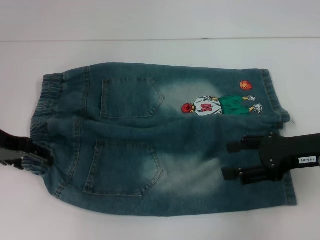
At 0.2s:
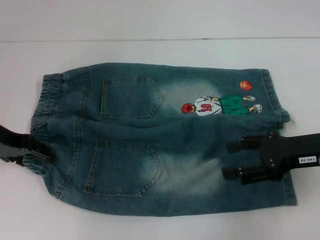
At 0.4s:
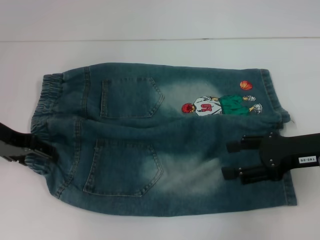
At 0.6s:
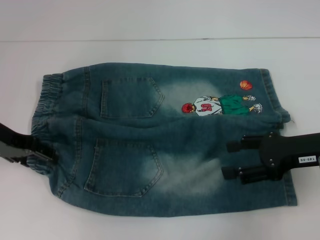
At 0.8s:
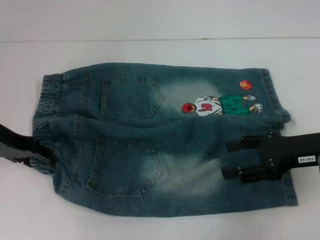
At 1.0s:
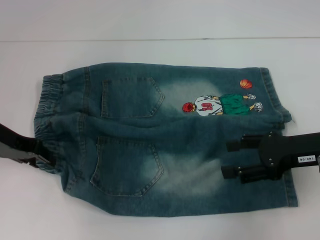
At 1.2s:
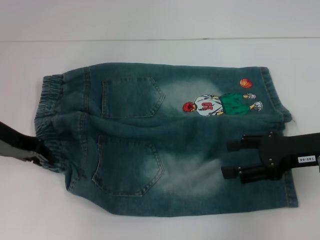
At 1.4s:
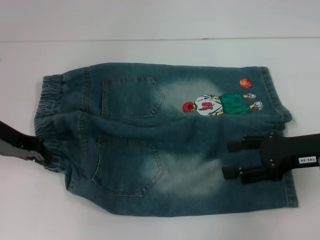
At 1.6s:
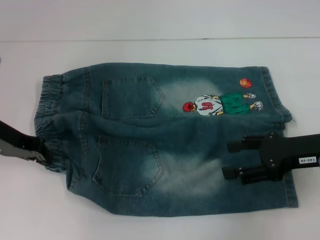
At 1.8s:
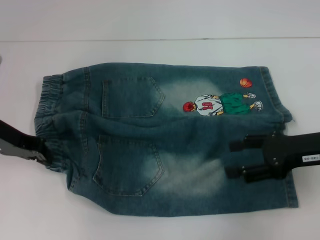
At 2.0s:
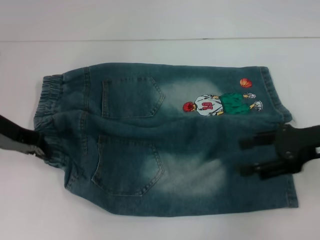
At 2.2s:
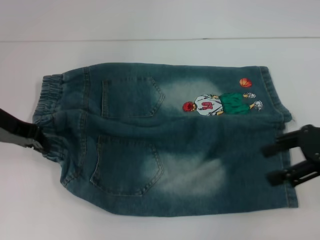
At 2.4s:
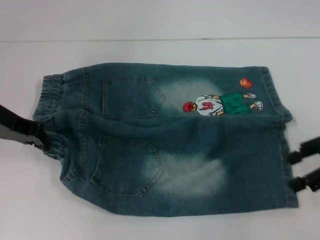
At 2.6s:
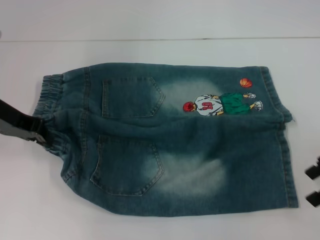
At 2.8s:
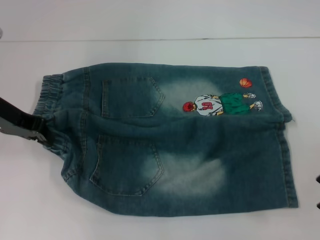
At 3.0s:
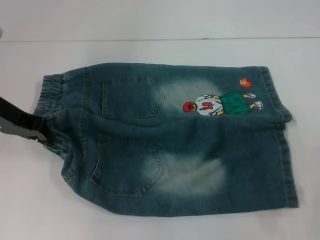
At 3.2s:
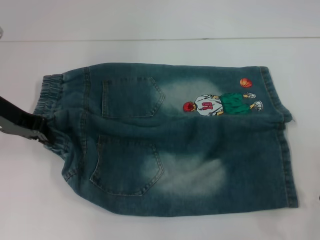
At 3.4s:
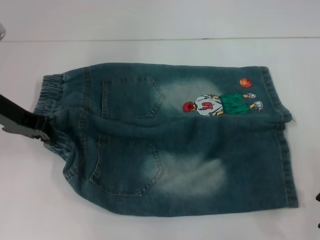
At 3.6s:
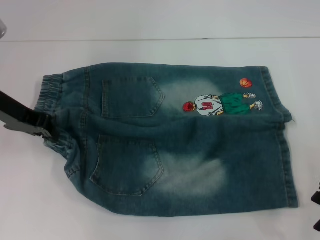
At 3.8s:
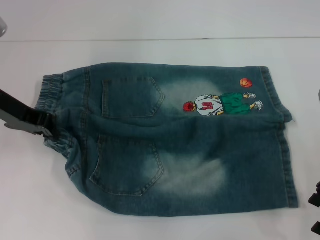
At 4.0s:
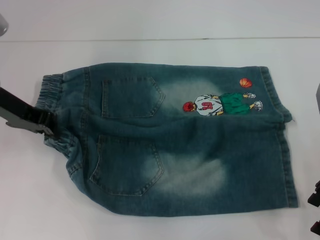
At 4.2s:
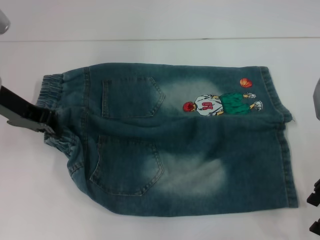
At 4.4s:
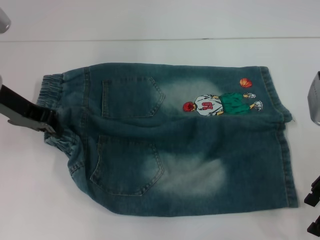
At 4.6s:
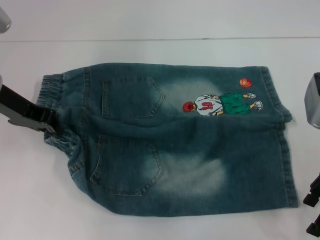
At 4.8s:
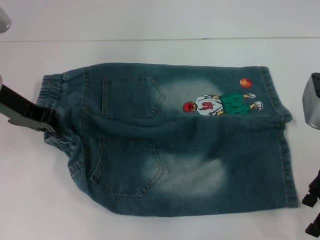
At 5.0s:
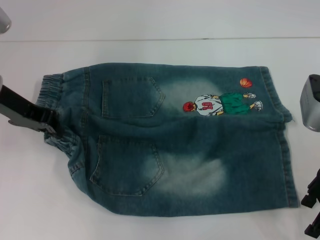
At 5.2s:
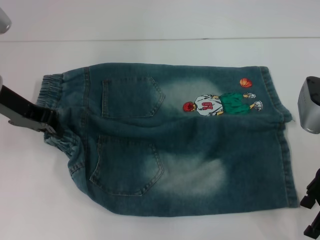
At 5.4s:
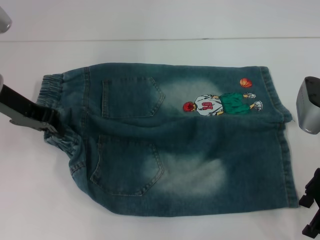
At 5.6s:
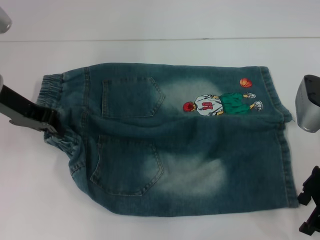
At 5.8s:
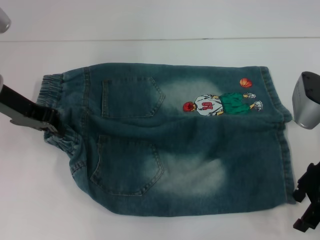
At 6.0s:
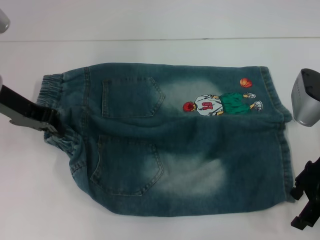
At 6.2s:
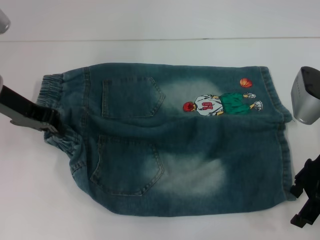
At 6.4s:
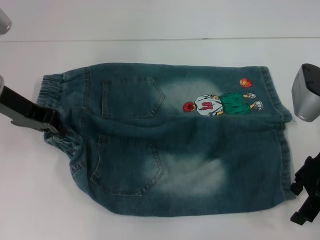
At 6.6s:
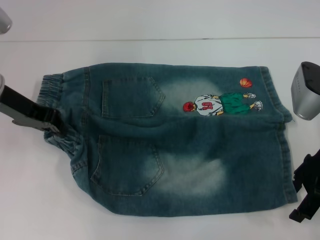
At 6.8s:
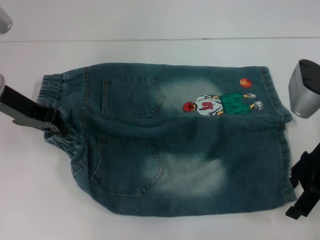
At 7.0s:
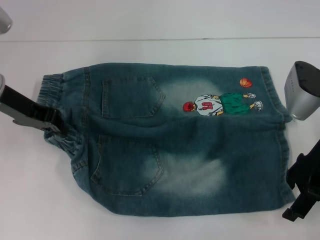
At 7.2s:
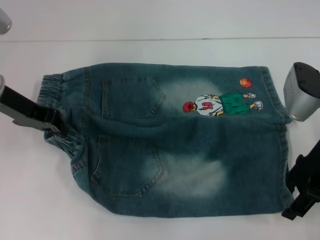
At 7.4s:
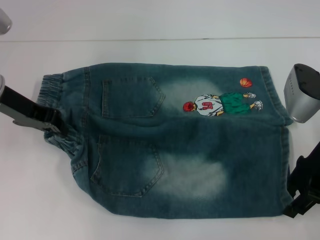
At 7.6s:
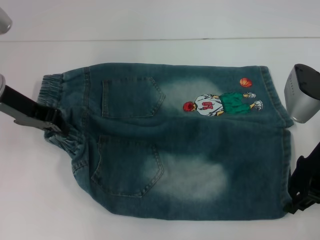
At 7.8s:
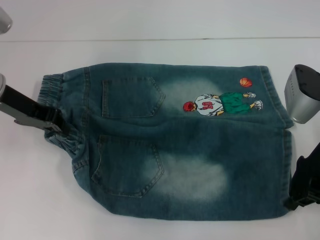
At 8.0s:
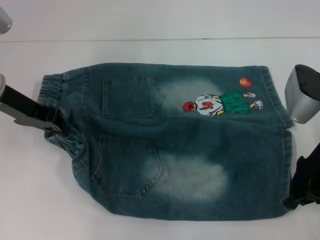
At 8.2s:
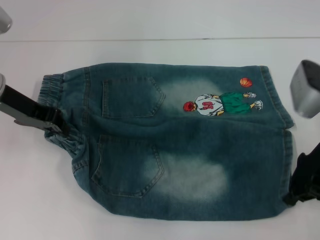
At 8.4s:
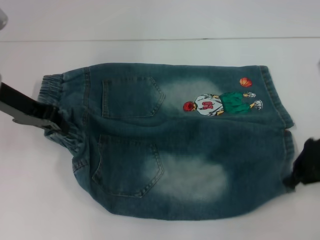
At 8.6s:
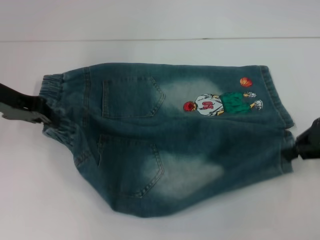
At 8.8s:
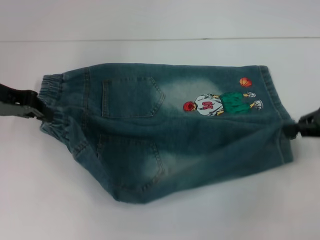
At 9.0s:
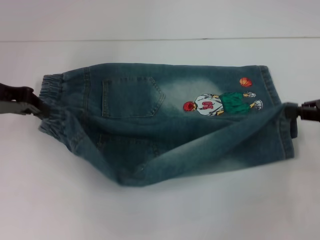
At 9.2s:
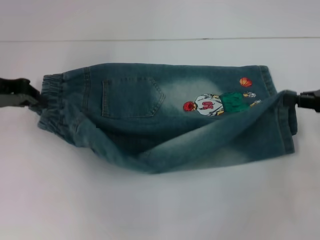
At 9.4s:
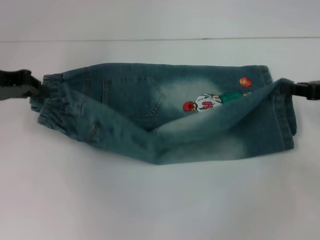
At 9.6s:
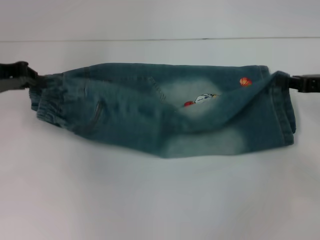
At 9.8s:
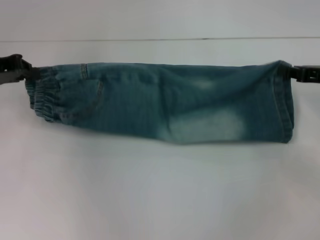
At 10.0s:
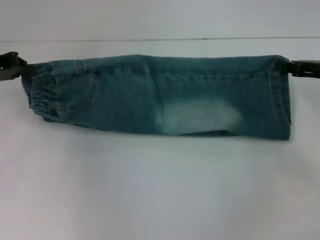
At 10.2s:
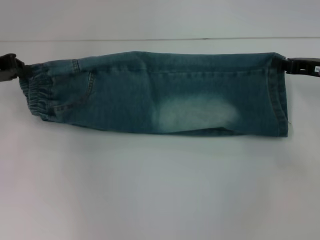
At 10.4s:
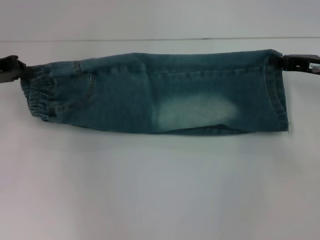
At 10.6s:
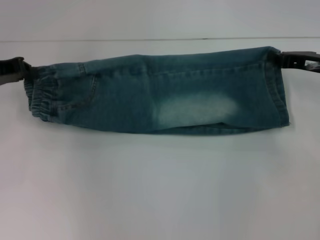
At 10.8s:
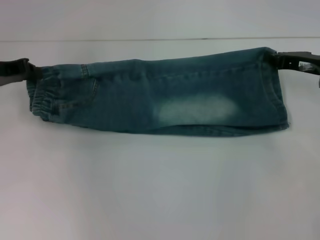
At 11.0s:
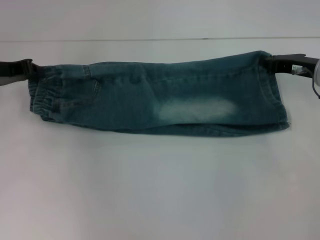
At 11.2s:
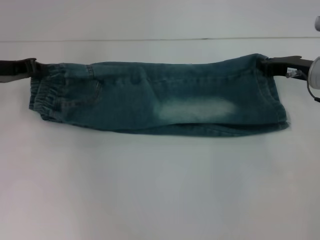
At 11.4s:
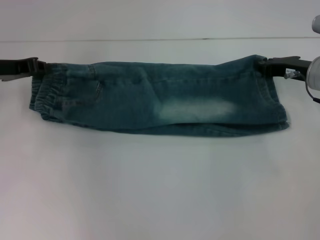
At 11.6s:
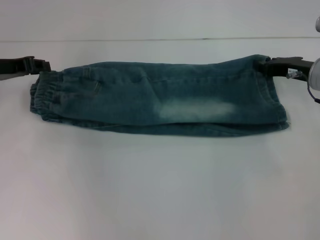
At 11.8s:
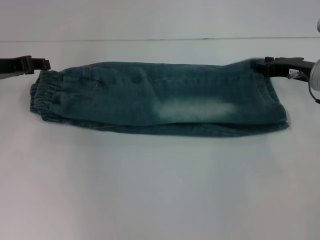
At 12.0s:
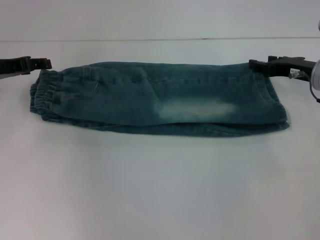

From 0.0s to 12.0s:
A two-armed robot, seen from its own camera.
Step, from 1.8s to 8.0s: Grab the lower right pant leg with your right hand.
Step, from 8.4s to 12.0s: Fold upward with your right hand.
From 0.0s to 1.6s: The left gripper closes.
From 1.6s to 3.0s: The right gripper shifts roughly 5 cm upward.
From 3.0s to 4.4s: The right gripper shifts by roughly 5 cm.
From 4.4s to 6.0s: The grippers stay close to where they were, moving slightly.
From 6.0s to 7.6s: The right gripper closes its fingers.
From 7.6s to 9.0s: The right gripper moves to the right, roughly 10 cm, and closes.
From 9.0s to 10.4s: The right gripper goes roughly 5 cm forward.
From 10.4s to 12.0s: The right gripper opens up; the left gripper opens its fingers.

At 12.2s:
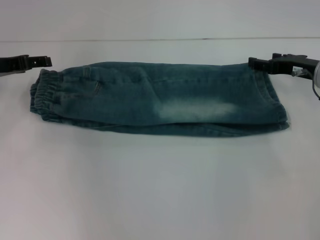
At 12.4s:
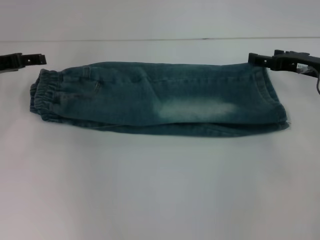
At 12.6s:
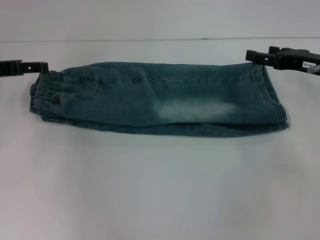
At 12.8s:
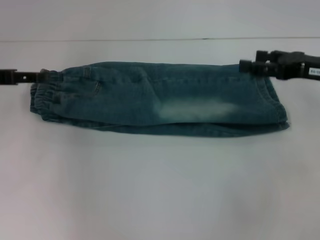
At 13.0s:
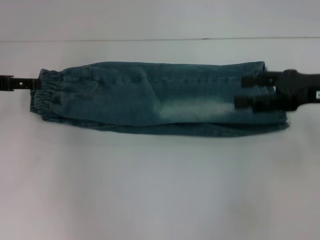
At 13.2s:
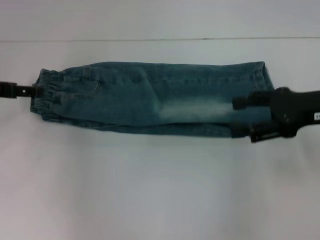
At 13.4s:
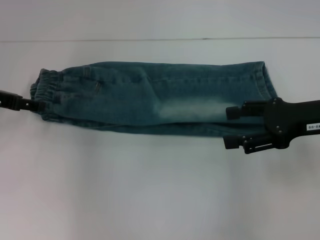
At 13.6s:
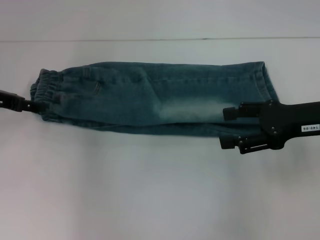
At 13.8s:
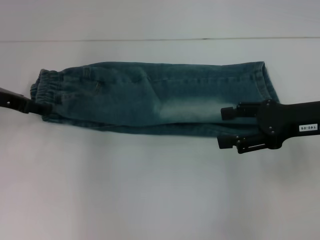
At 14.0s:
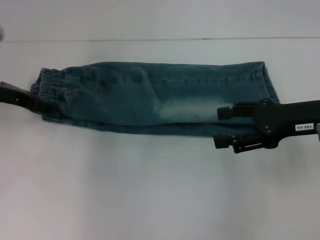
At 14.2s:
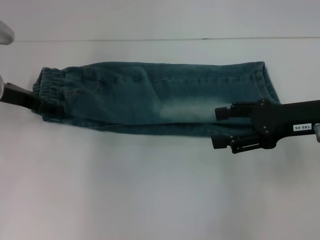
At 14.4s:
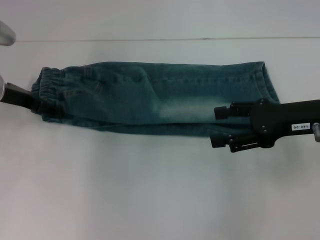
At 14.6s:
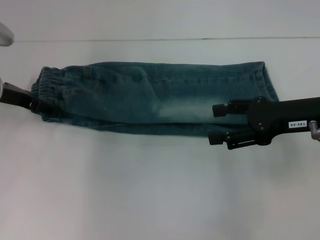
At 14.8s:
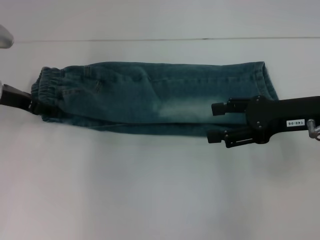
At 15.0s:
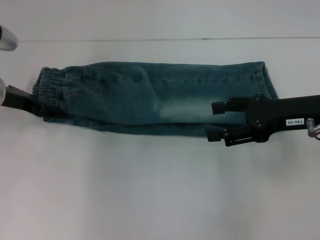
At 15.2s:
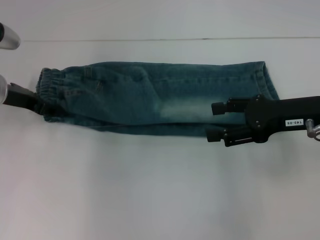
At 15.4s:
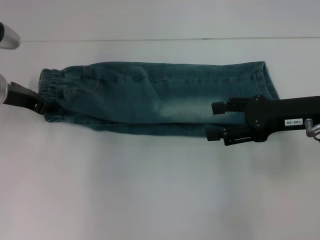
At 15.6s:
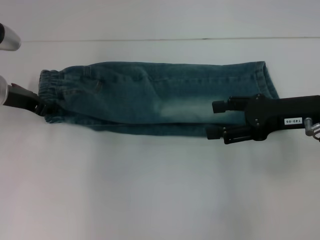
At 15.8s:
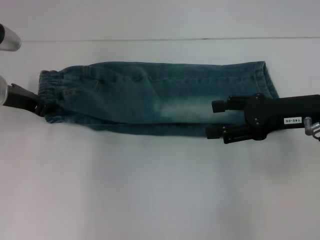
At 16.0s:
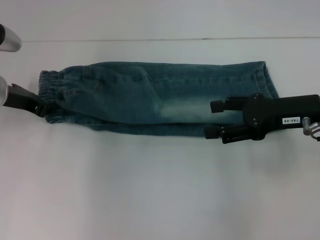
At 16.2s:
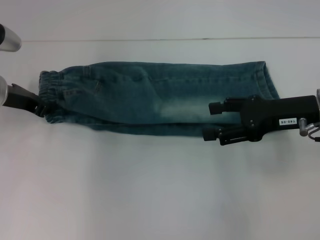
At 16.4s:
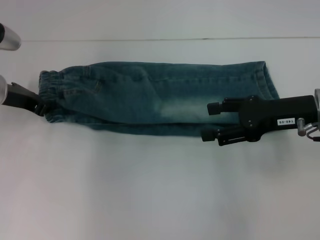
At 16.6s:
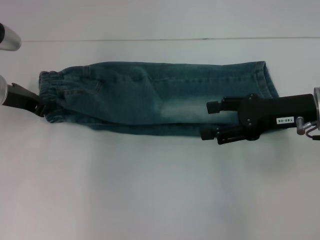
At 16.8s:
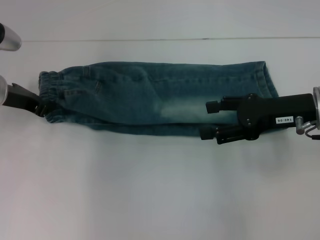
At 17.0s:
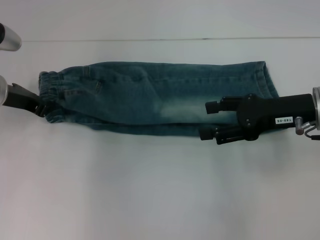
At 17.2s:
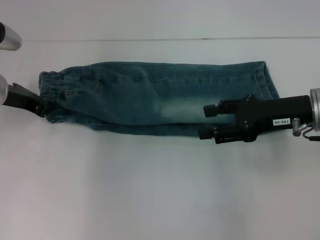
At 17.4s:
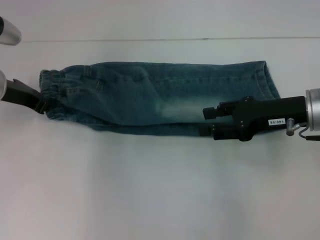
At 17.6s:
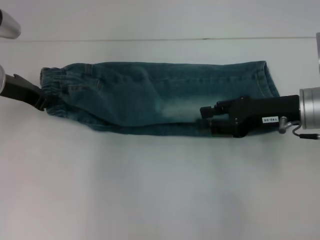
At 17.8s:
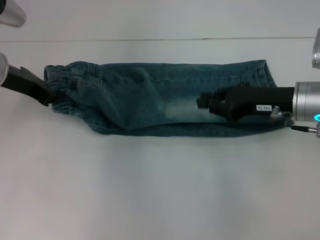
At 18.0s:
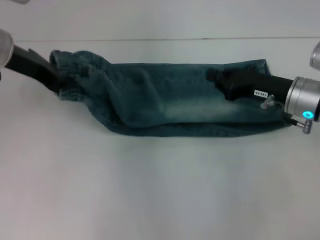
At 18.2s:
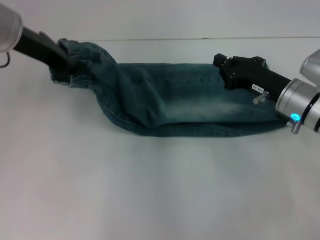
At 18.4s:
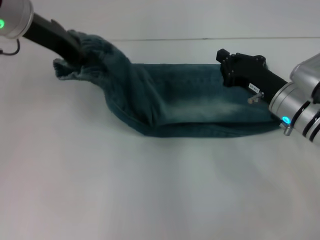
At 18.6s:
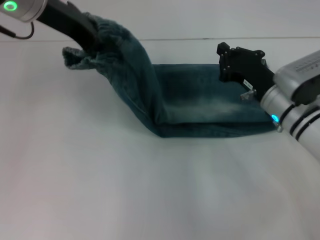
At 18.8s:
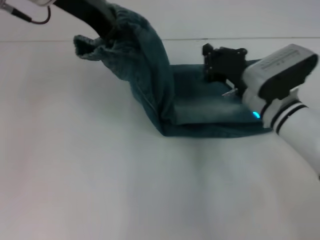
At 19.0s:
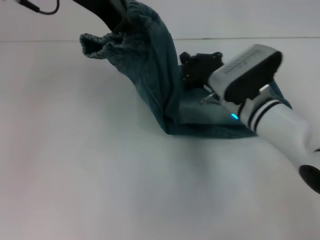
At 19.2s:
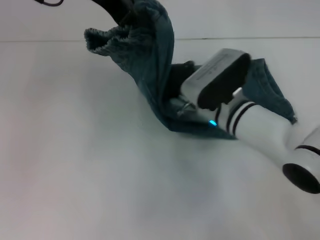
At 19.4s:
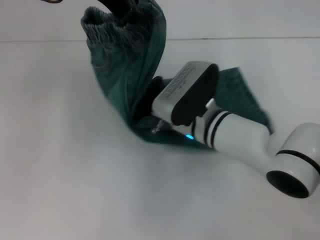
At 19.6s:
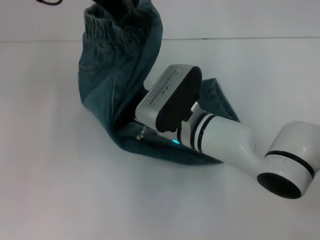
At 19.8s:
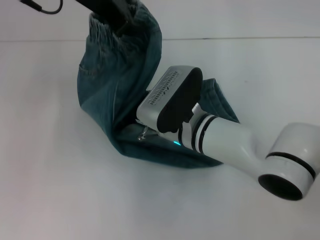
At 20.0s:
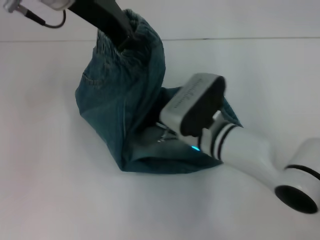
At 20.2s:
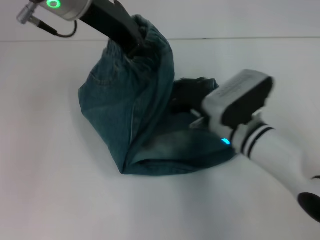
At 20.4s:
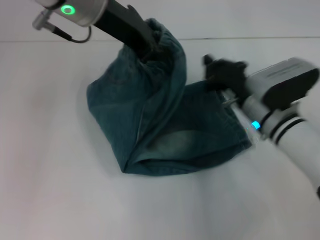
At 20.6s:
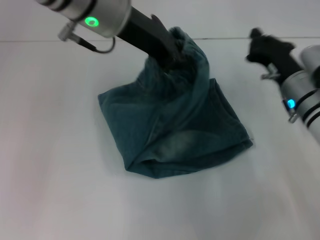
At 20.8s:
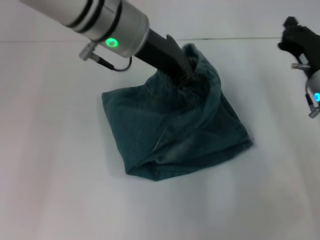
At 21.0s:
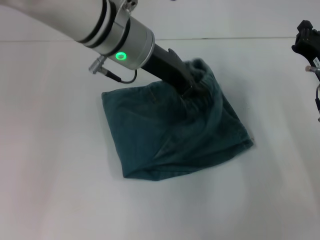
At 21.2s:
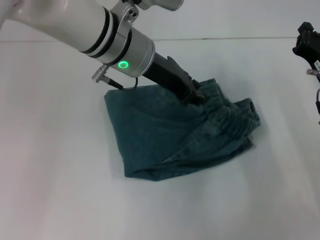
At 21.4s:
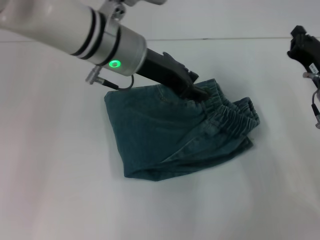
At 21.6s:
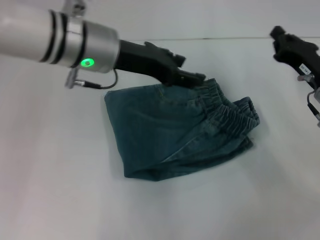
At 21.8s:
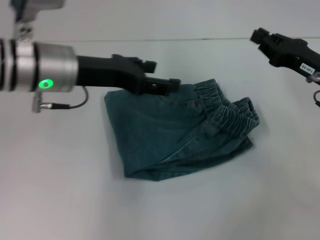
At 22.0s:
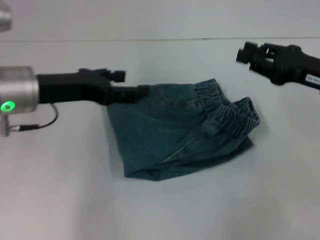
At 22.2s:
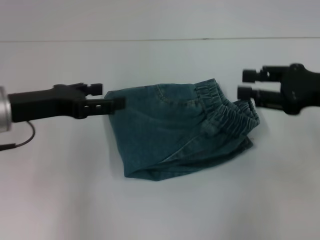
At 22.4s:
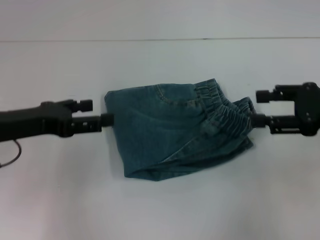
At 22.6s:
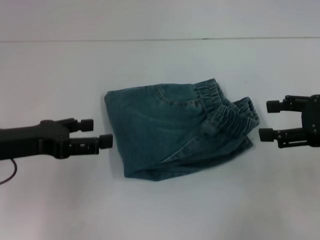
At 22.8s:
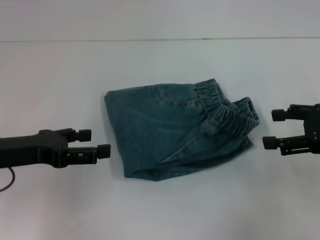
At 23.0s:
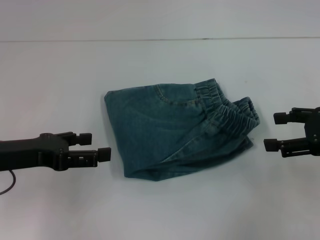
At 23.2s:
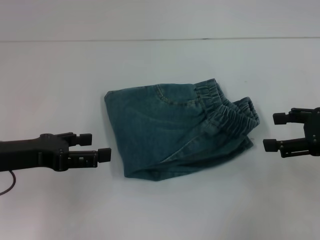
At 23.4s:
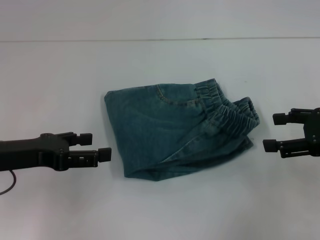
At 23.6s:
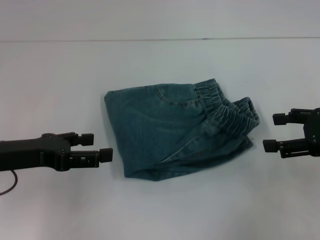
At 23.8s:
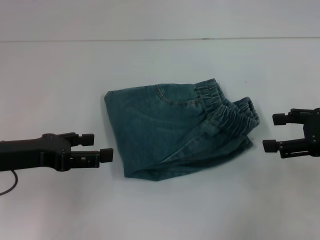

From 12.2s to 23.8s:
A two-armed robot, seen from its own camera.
Step, from 12.2s to 16.6s: Hold the waistband with your left hand.
Step, from 16.8s to 20.0s: Press the middle of the pants with your right hand.
Step, from 20.2s to 21.4s: Fold to the right with your left hand.
From 12.2s to 13.6s: The right gripper shifts approximately 10 cm backward and upward.
From 13.6s to 15.0s: The grippers move only a little.
From 15.0s to 16.6s: The left gripper closes up.
From 16.6s to 18.0s: The right gripper ends up roughly 5 cm from where it was, and closes its fingers. The left gripper is displaced upward by about 10 cm.
From 18.0s to 19.4s: The left gripper heads upward and to the right, covering about 15 cm. Meanwhile the right gripper is displaced to the left by some 15 cm.
From 19.4s to 21.0s: The left gripper goes some 15 cm downward and to the right. Meanwhile the right gripper travels to the right by some 20 cm.
From 21.0s to 22.4s: The right gripper moves upward and backward, about 10 cm, and opens, while the left gripper heads to the left and backward, covering some 20 cm, and opens.
From 22.4s to 23.8s: The right gripper opens up.
